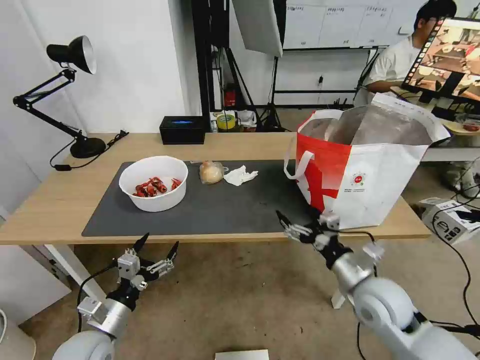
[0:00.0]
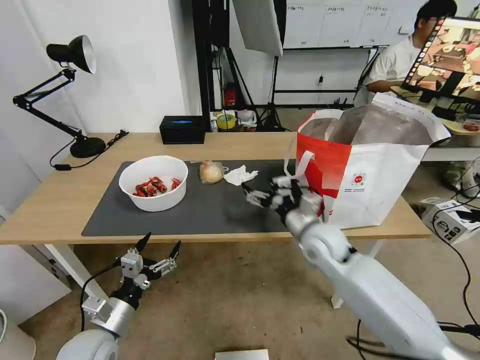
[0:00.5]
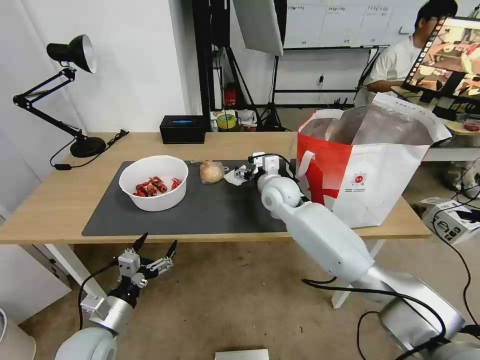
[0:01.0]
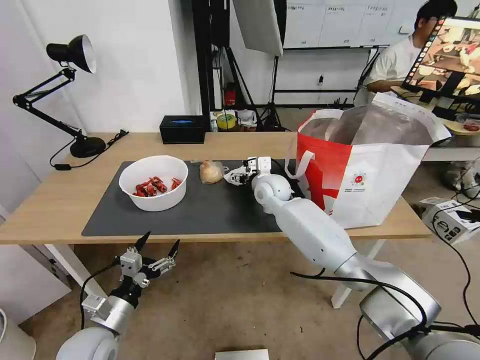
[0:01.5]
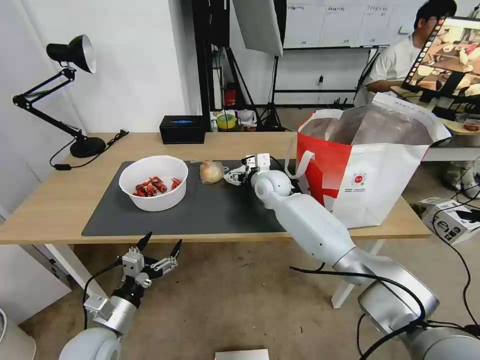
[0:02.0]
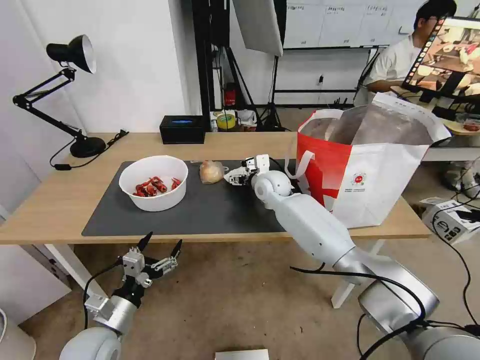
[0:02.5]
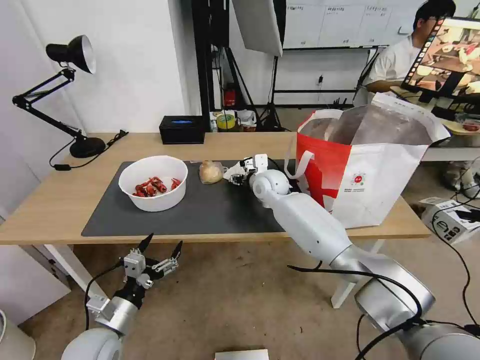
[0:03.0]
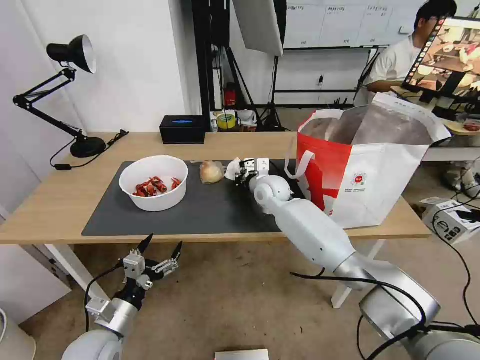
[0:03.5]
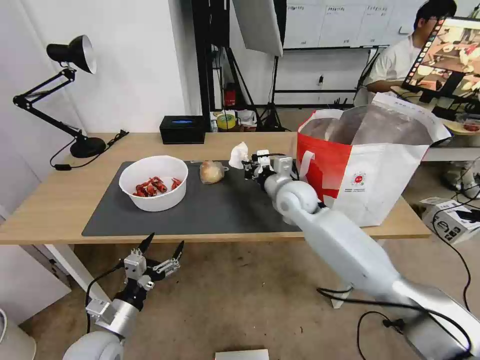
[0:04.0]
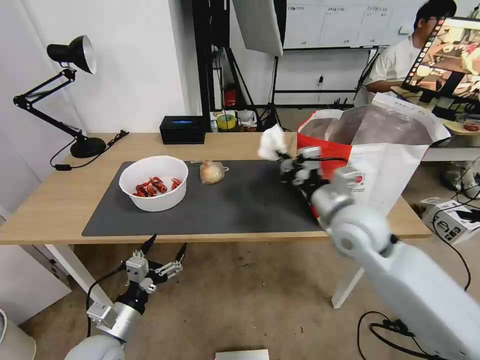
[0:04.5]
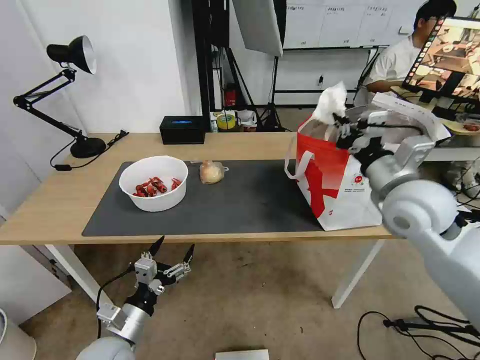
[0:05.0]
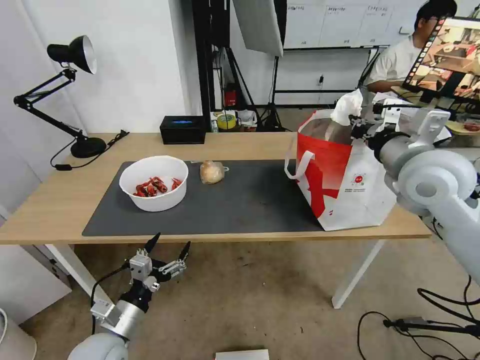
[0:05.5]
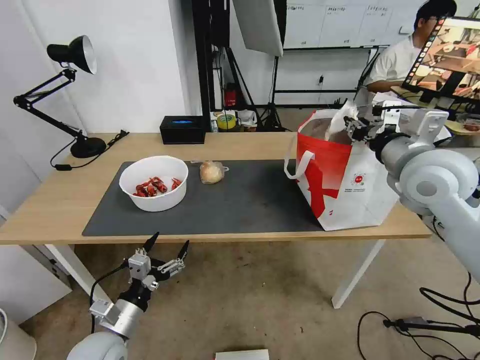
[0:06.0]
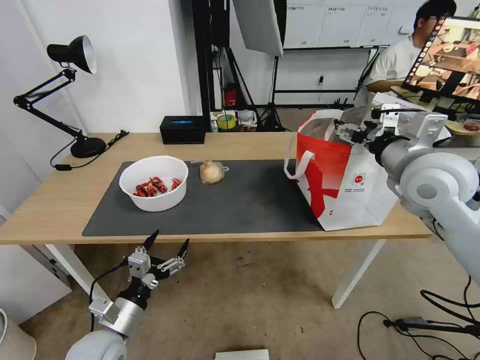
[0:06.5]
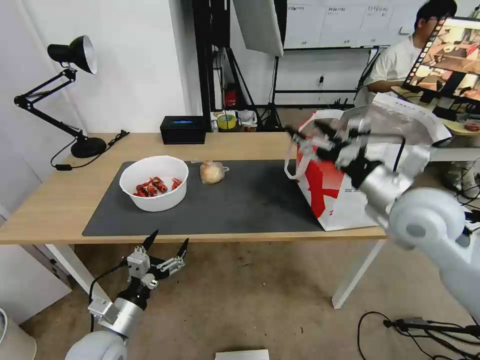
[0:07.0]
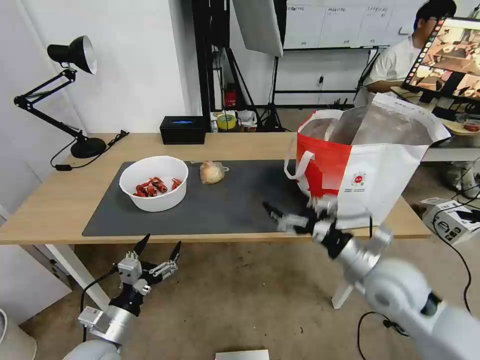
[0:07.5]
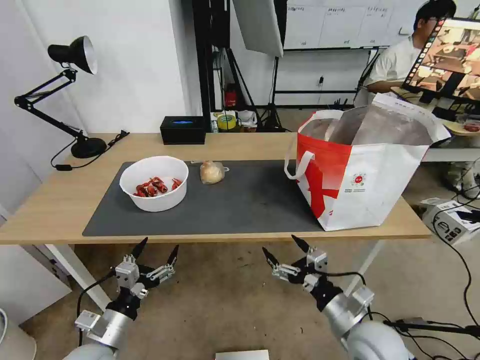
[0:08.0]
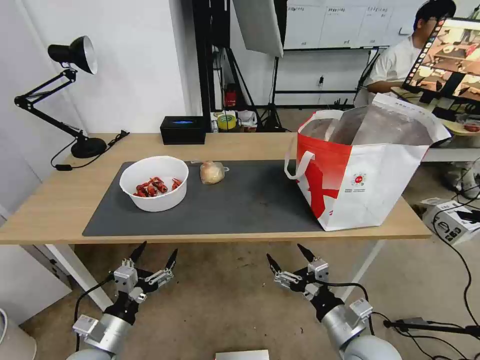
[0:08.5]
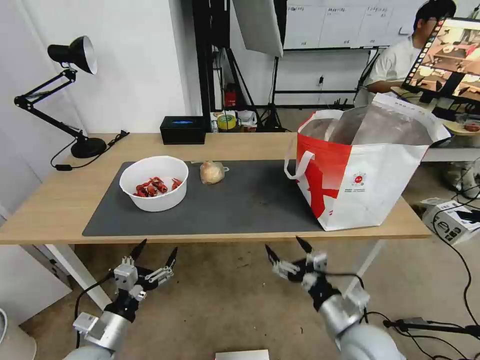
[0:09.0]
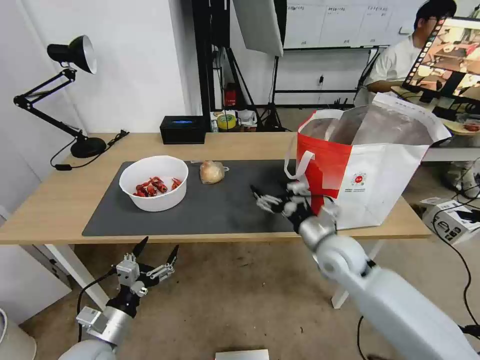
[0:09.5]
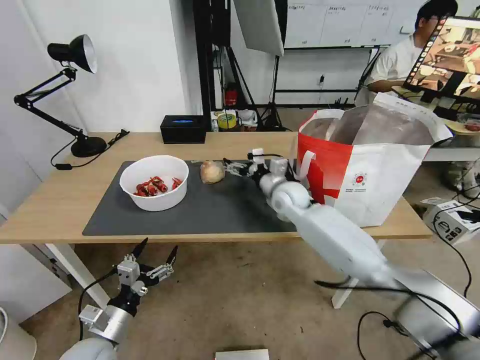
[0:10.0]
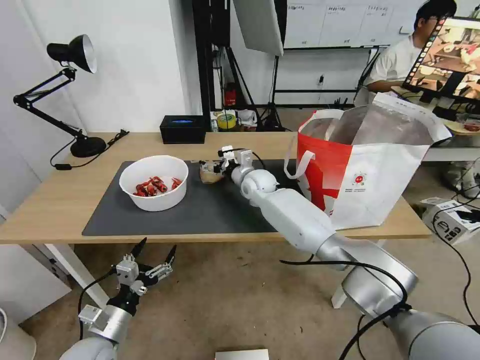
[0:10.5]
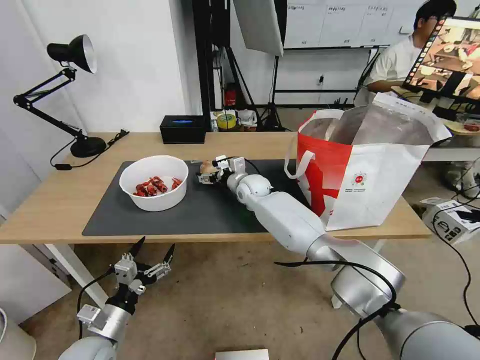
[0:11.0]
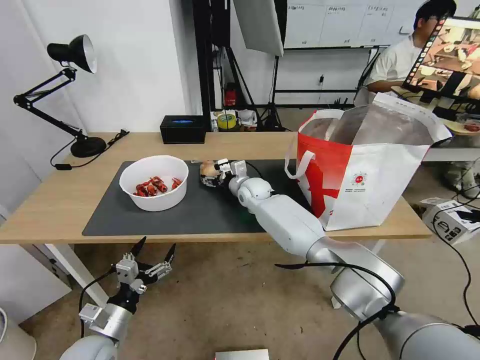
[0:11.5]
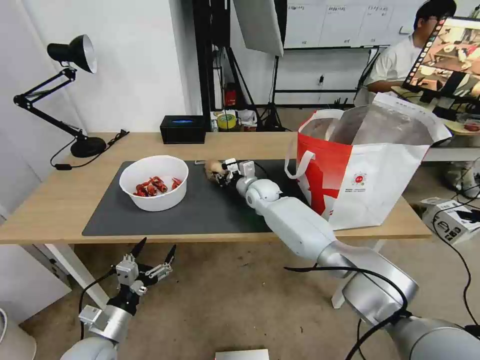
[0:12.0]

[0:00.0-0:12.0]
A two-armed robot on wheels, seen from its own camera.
Task of the whole recording: Pick up the trash from the table and place it into the takeout bag.
0:00.0 to 0:02.0: The right gripper goes some 35 cm forward and to the left.
0:02.0 to 0:04.0: The right gripper is displaced backward by about 10 cm, and closes its fingers.
0:04.0 to 0:06.0: The right gripper heads to the right, upward and backward, covering roughly 25 cm.
0:06.0 to 0:08.0: The right gripper shifts about 35 cm downward and backward, and opens its fingers.
0:08.0 to 0:10.0: The right gripper travels forward by about 30 cm.
0:10.0 to 0:12.0: The right gripper moves to the left and forward, about 10 cm, and closes up.

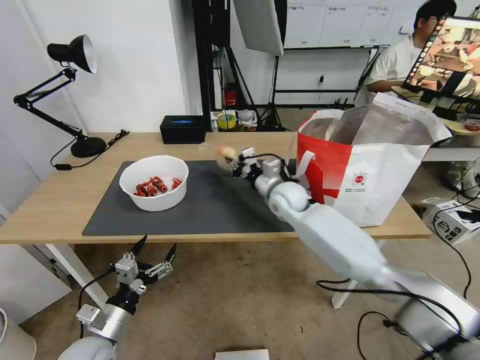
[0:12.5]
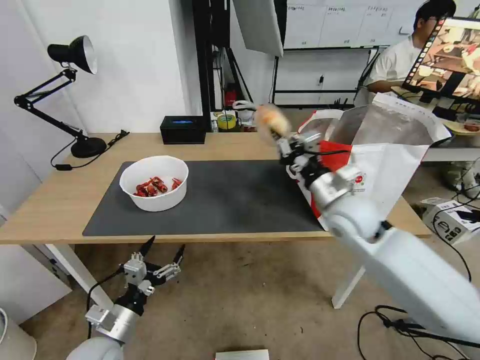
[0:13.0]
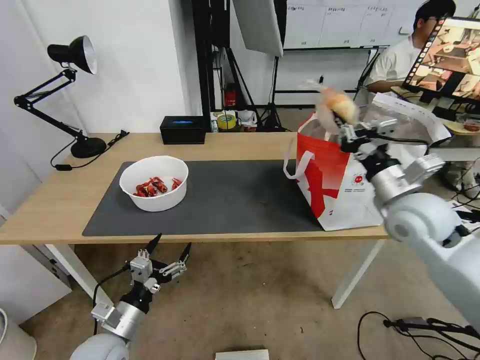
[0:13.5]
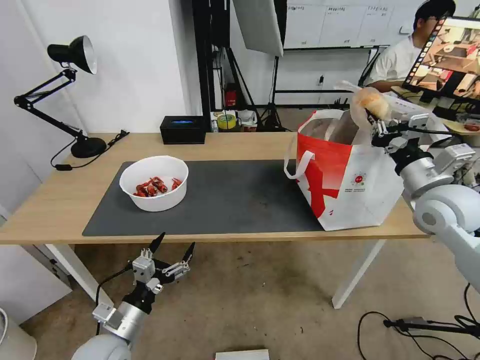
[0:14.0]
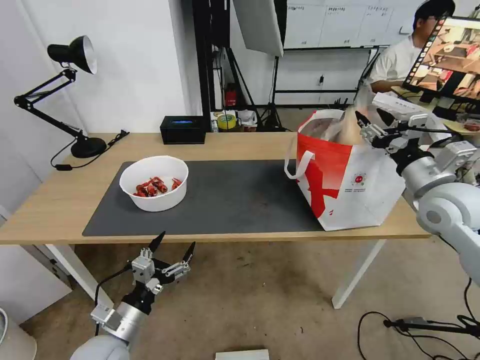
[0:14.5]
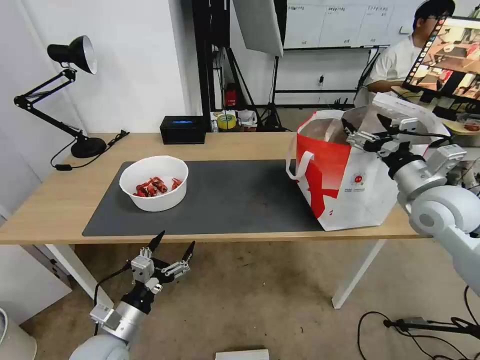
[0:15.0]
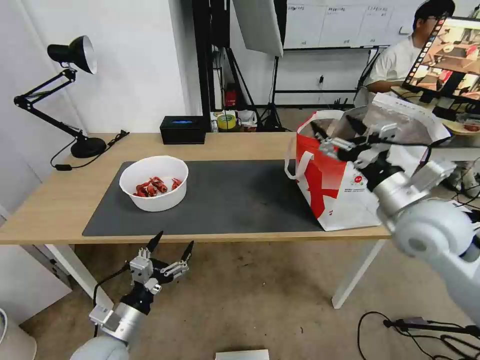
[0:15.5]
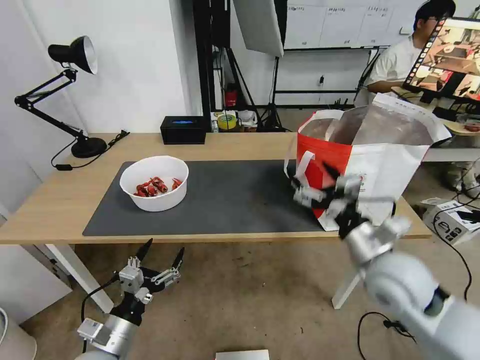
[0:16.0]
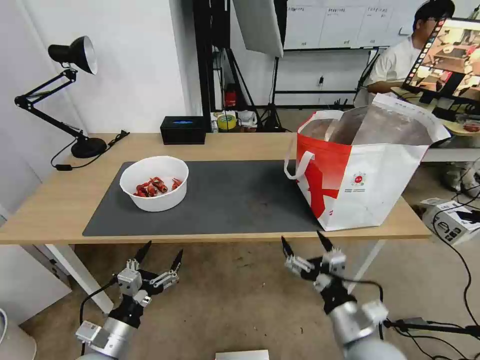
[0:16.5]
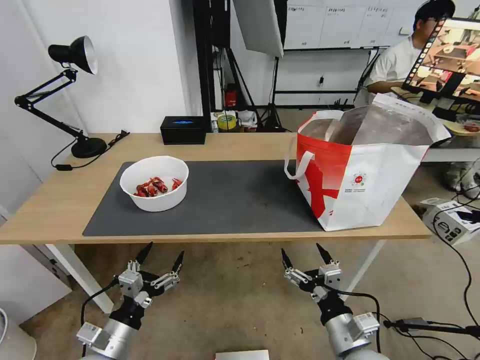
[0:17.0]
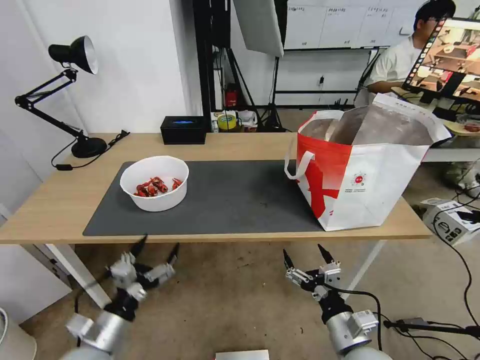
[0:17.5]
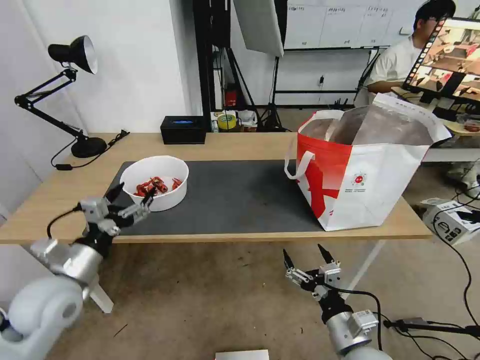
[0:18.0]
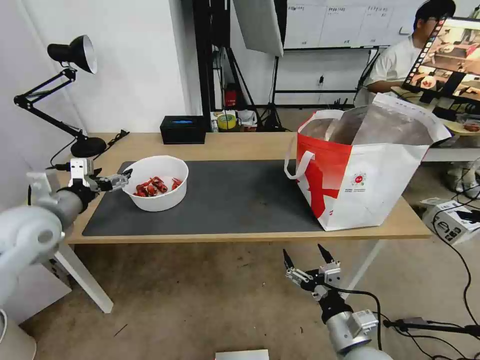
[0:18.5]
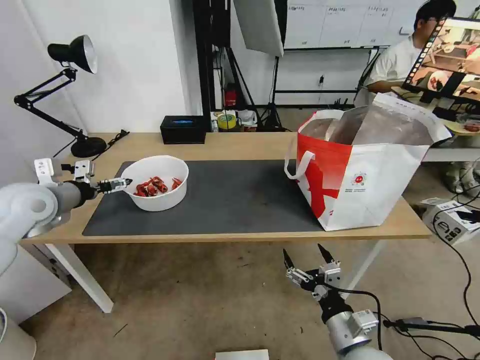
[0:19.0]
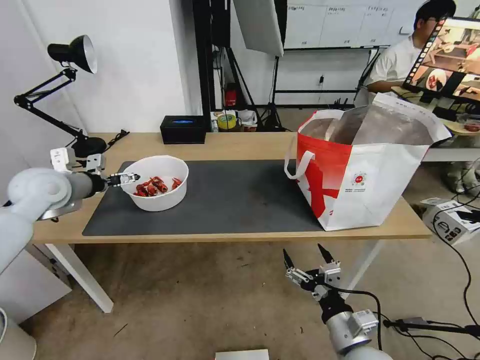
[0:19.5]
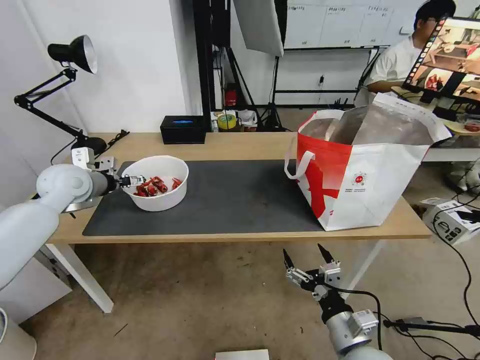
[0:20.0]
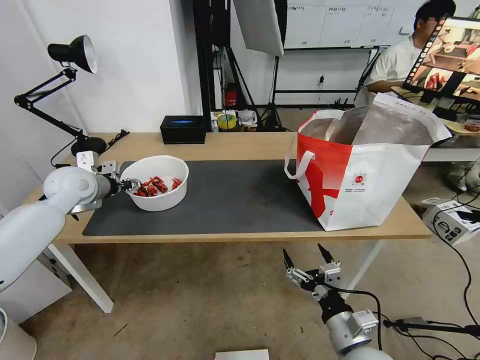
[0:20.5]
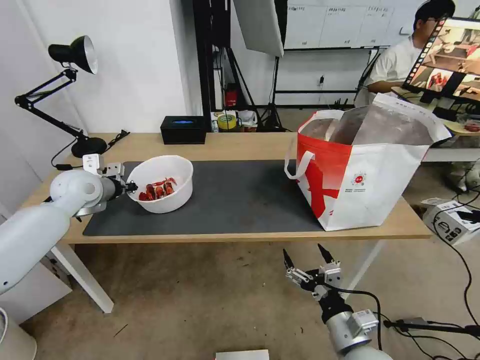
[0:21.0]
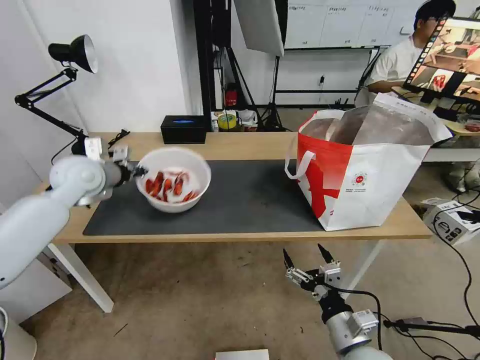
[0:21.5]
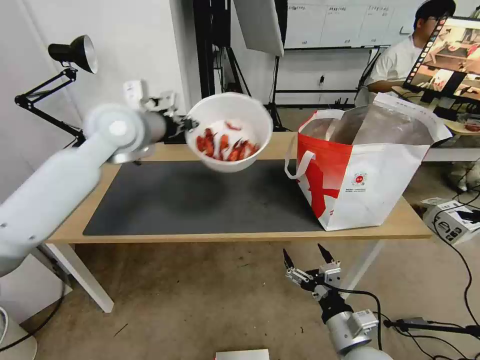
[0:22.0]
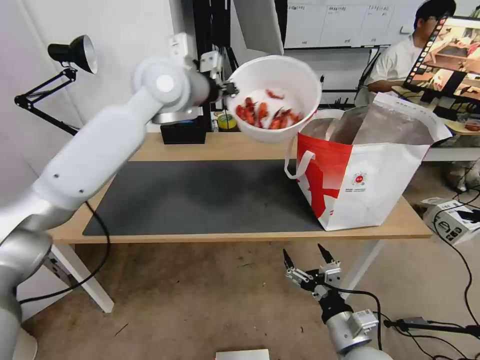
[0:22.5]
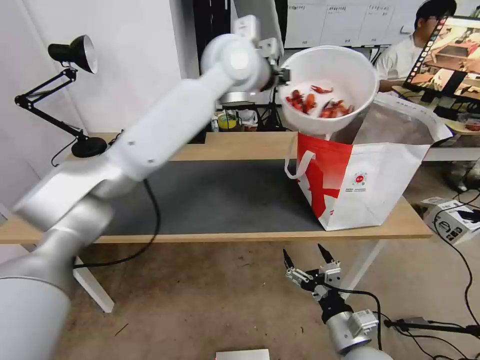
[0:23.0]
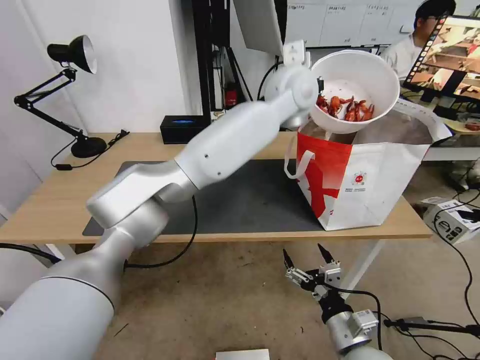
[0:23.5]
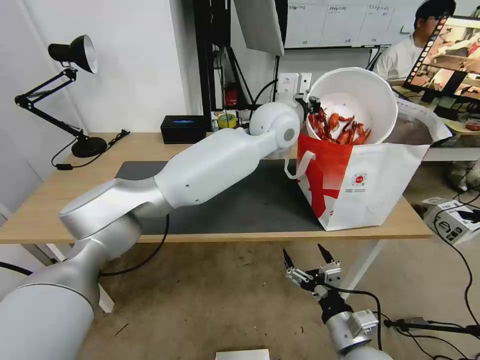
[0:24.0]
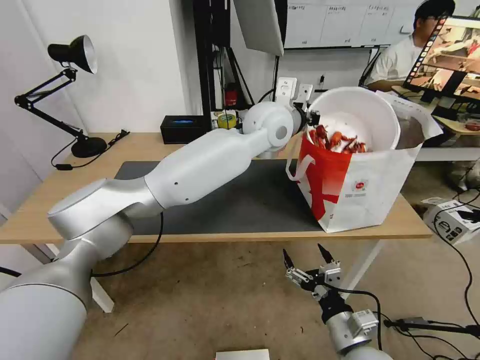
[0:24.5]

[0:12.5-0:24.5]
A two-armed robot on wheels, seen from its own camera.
Task of the whole recording: Pick up the trash from the table and place it into the takeout bag.
0:12.5 to 0:14.5: The right gripper travels to the right, backward and upward by about 30 cm, and opens its fingers.
0:14.5 to 0:16.5: The right gripper heads backward, downward and to the left, covering some 35 cm, and opens up.
0:16.5 to 0:18.5: The left gripper heads upward, forward and to the left, covering some 30 cm.
0:18.5 to 0:20.5: The left gripper travels forward by roughly 15 cm, and closes.
0:20.5 to 0:22.5: The left gripper heads to the right and upward, covering some 30 cm, and closes up.
0:22.5 to 0:24.5: The left gripper shifts approximately 20 cm to the right.

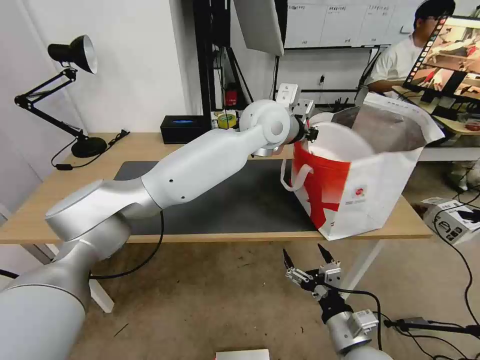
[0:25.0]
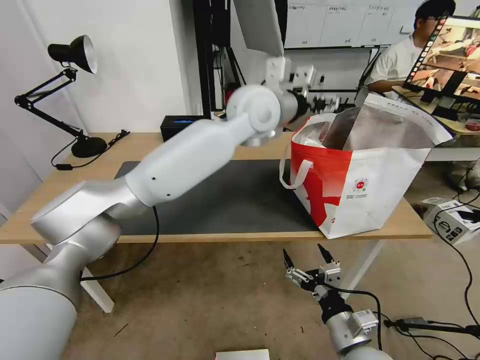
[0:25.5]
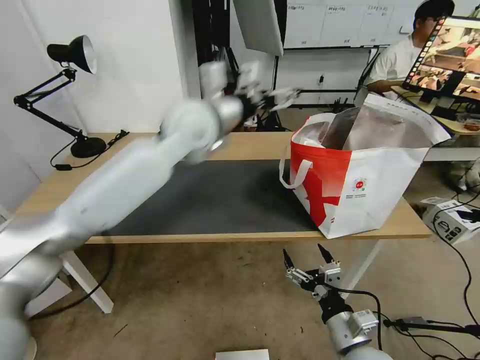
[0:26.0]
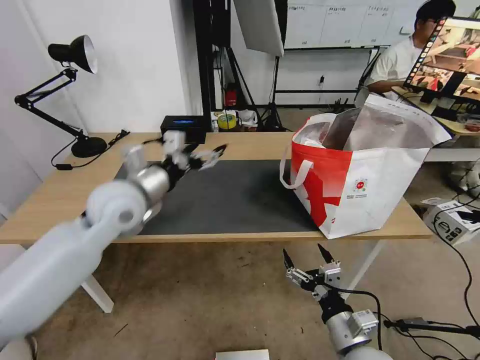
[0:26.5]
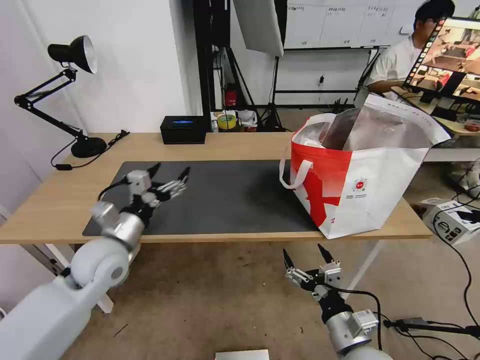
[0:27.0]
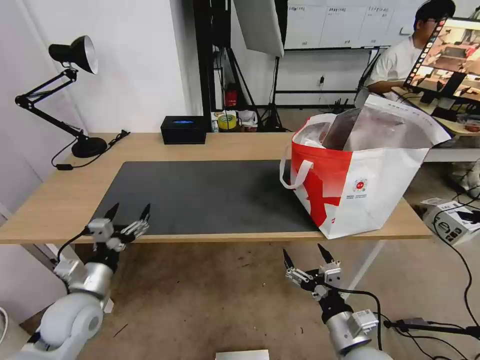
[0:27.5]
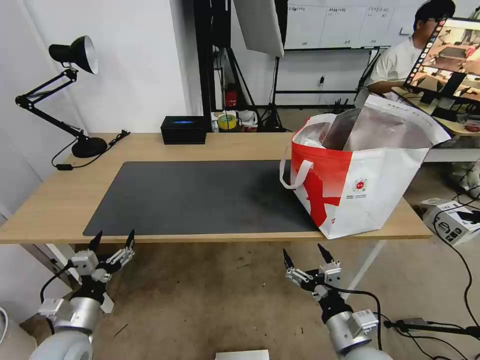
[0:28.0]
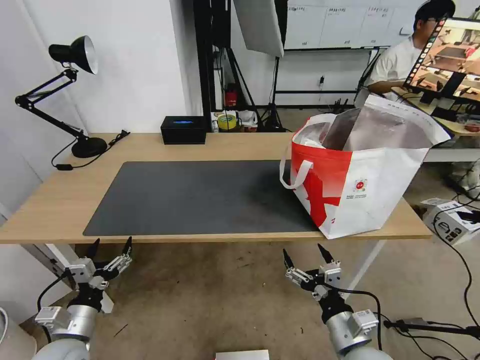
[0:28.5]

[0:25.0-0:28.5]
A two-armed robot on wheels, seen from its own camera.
Task of the whole recording: Pick up the trash from the table and place it into the takeout bag.
0:25.0 to 0:27.0: The left gripper goes some 40 cm to the left, downward and backward, and opens up.
0:27.0 to 0:28.5: The left gripper travels backward, downward and to the left by roughly 20 cm.
